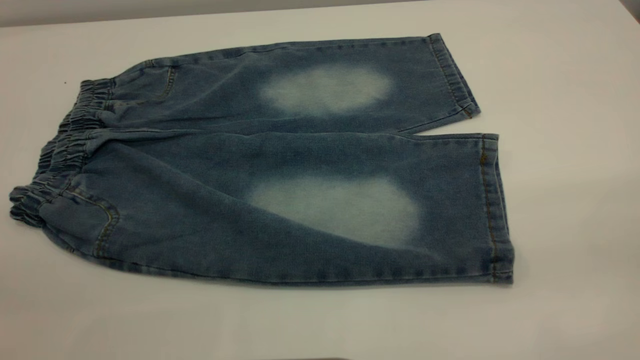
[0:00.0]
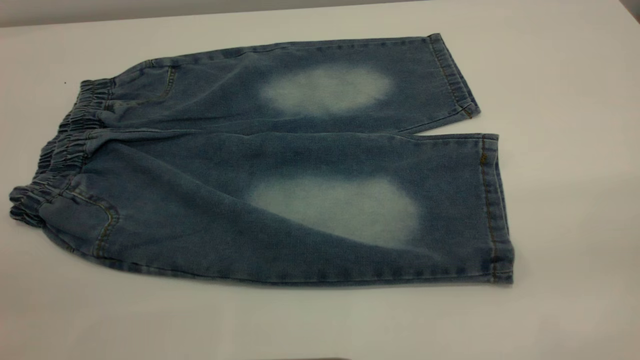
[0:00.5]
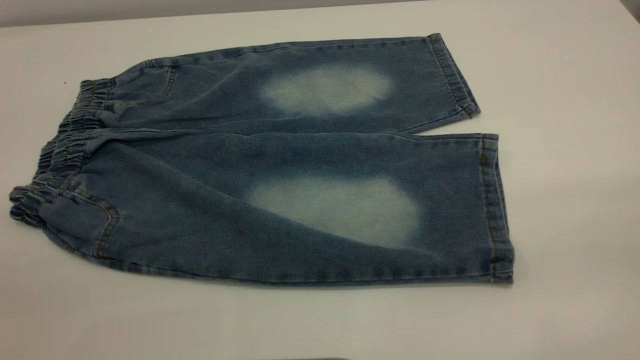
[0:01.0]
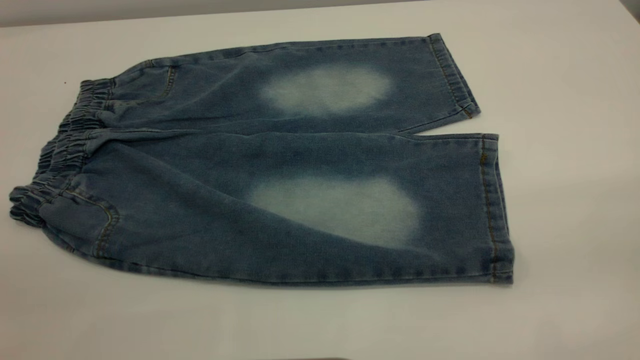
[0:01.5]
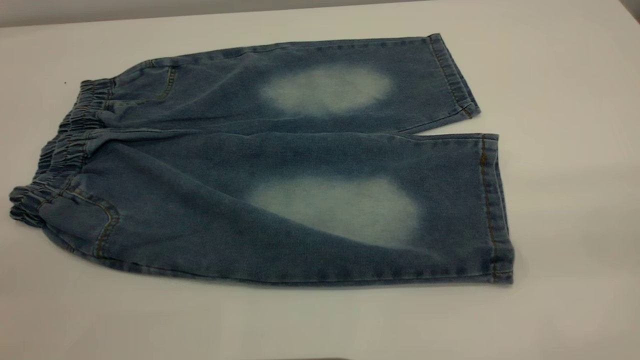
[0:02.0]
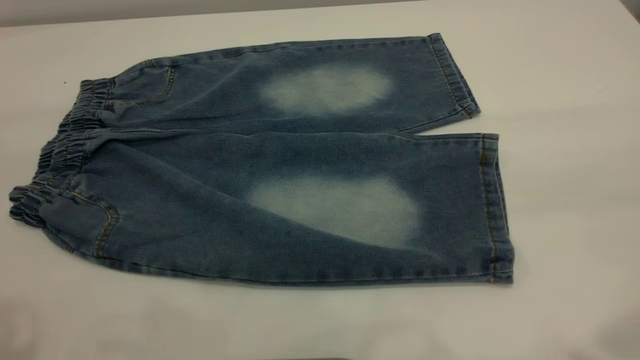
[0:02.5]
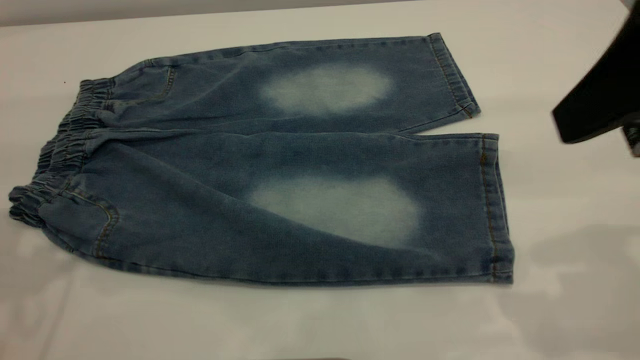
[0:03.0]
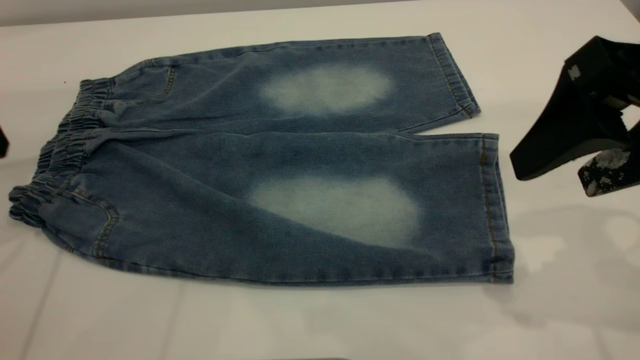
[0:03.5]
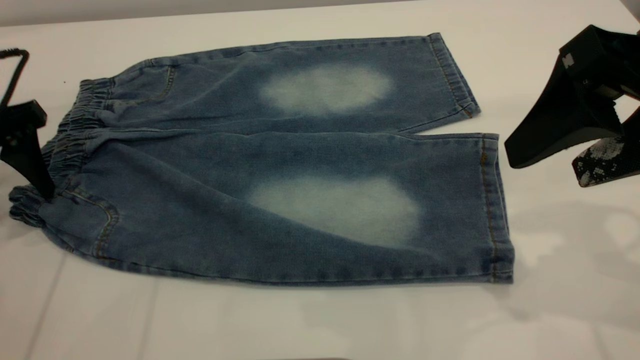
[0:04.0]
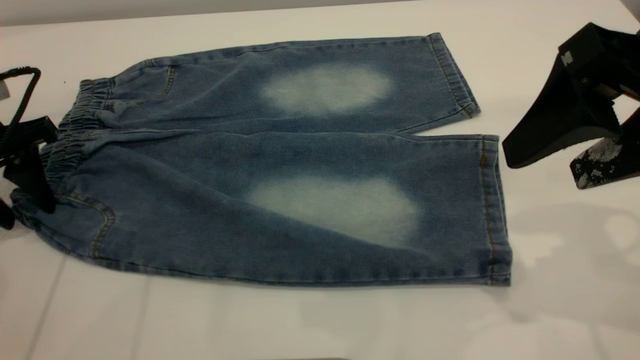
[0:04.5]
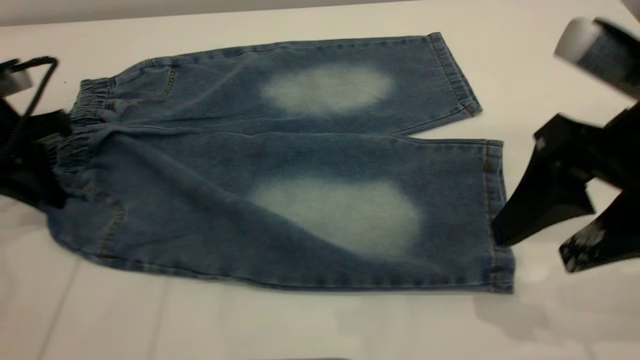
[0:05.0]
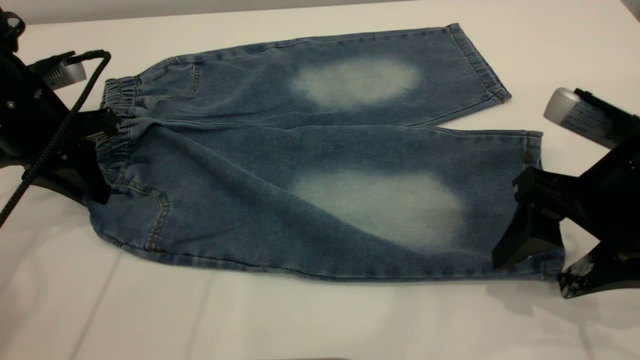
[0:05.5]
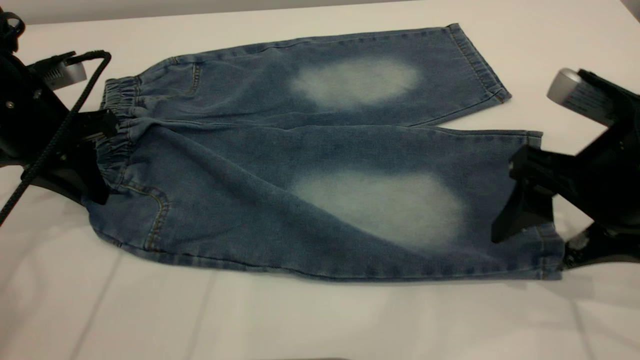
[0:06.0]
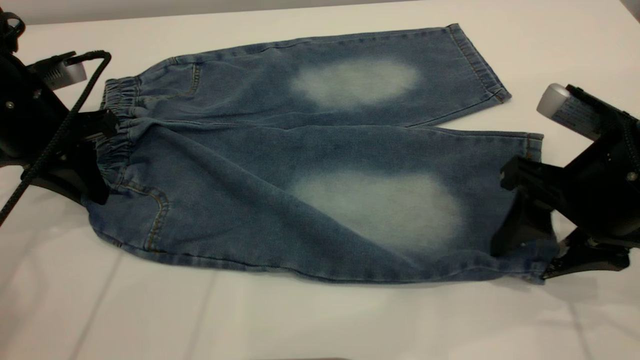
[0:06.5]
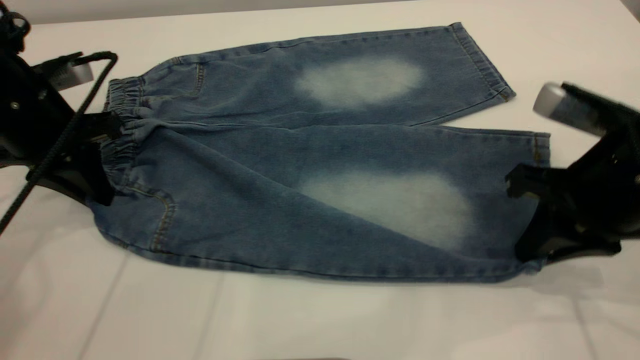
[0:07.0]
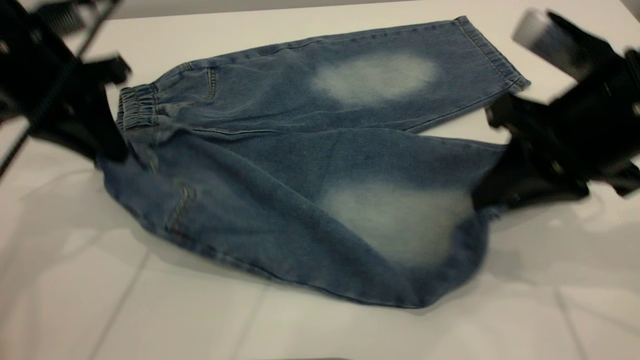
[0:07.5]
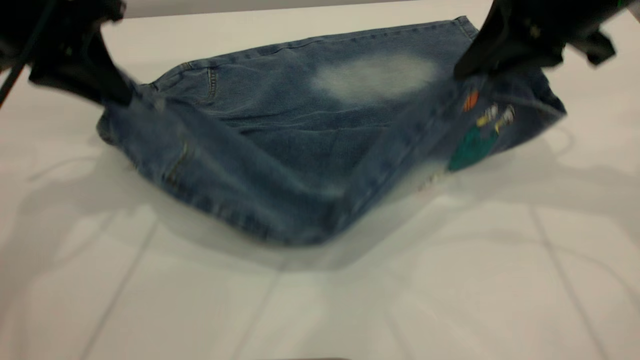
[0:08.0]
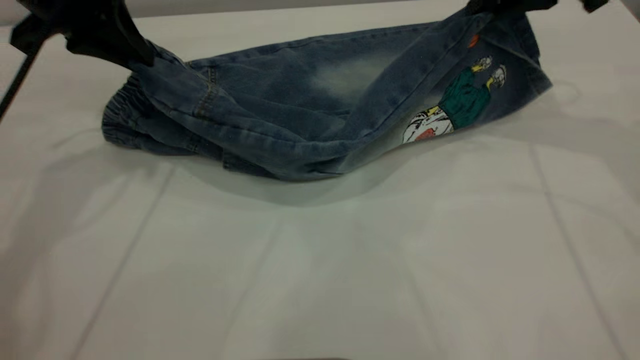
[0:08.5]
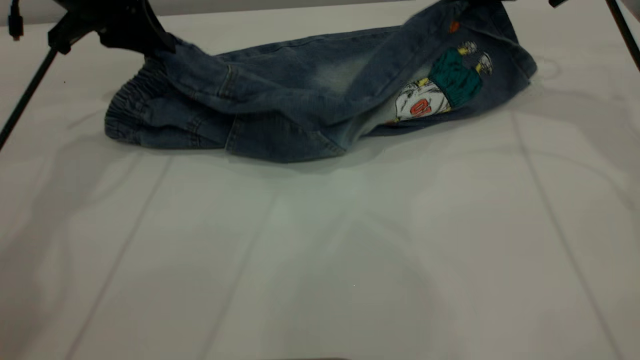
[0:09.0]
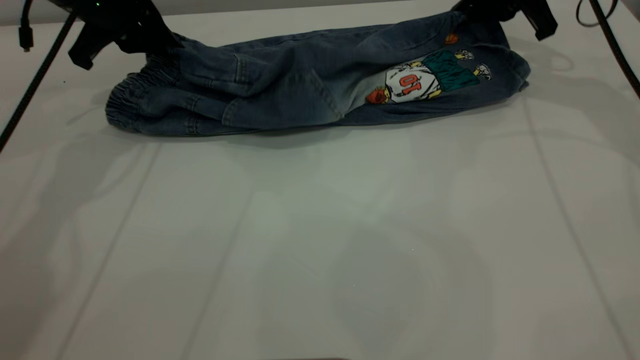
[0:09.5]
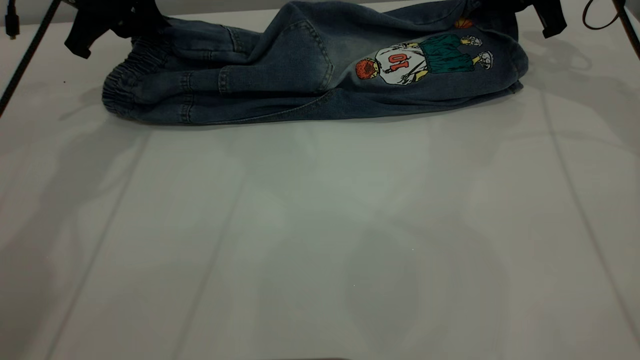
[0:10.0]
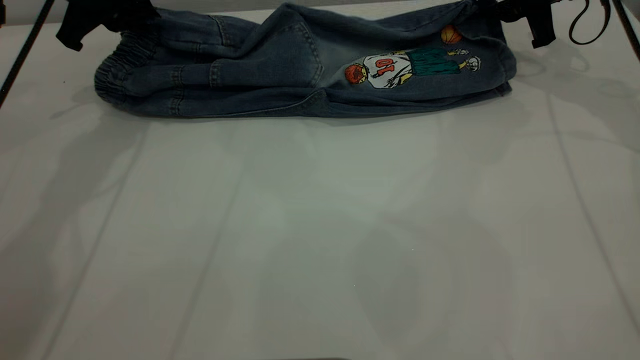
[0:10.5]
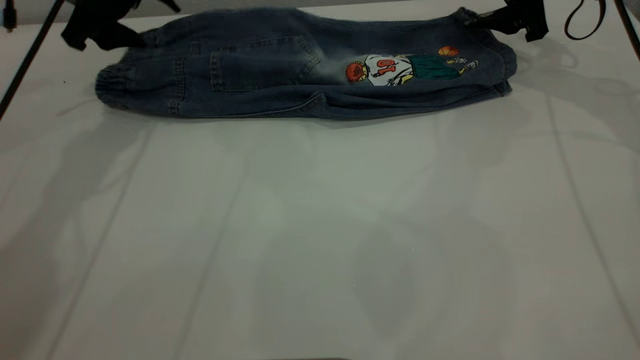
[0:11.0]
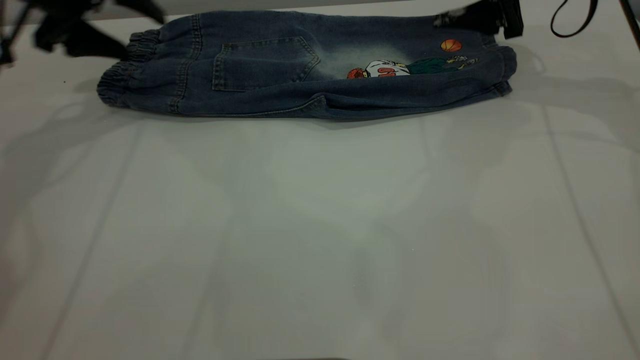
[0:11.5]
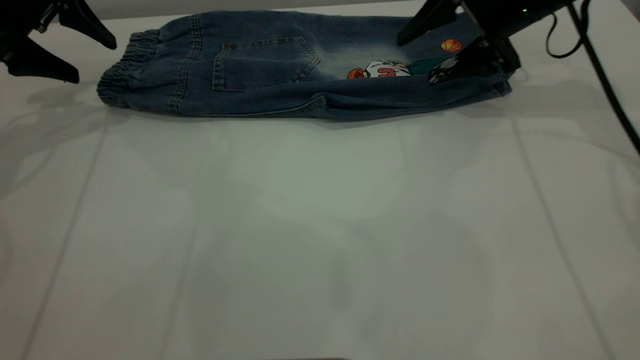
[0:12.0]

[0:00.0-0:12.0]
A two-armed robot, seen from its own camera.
Step, 0:00.0 to 0:11.0: Fold the bottom of the pants upward.
0:02.0 to 0:04.0: The left gripper travels forward and downward by some 40 cm. The right gripper goes about 25 cm forward and downward.
0:04.0 to 0:06.0: The left gripper goes roughly 5 cm to the right, and closes, while the right gripper shifts roughly 10 cm downward.
0:06.0 to 0:08.0: The right gripper moves forward and upward, some 15 cm, and closes its fingers. Meanwhile the left gripper goes about 10 cm upward.
0:08.0 to 0:10.0: The left gripper travels forward by roughly 10 cm, while the right gripper travels forward, downward and to the right by some 20 cm.
0:10.0 to 0:12.0: Both grippers travel together to the left, approximately 10 cm. The right gripper opens, while the left gripper opens its fingers.

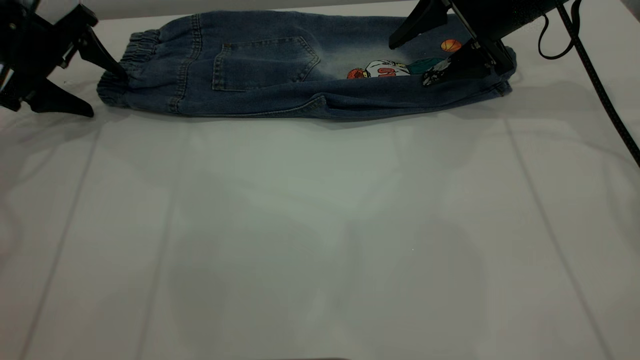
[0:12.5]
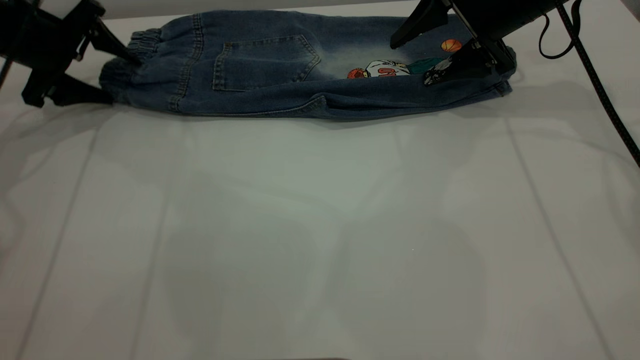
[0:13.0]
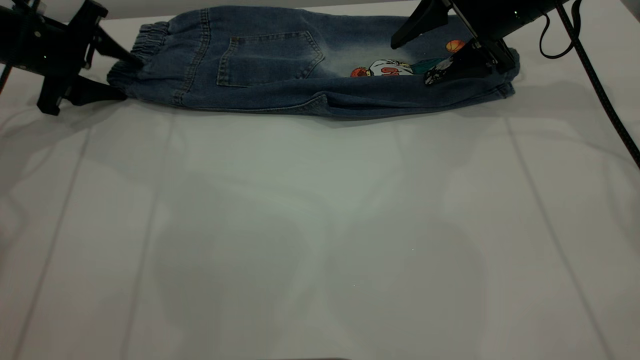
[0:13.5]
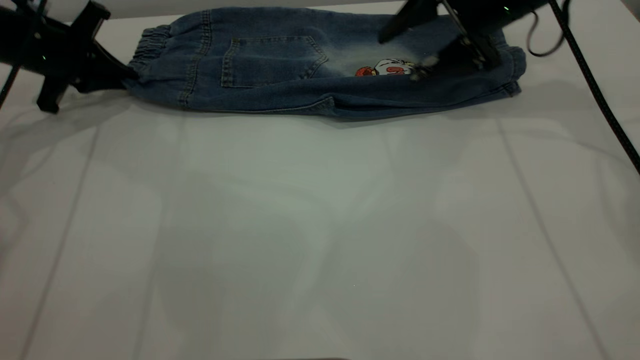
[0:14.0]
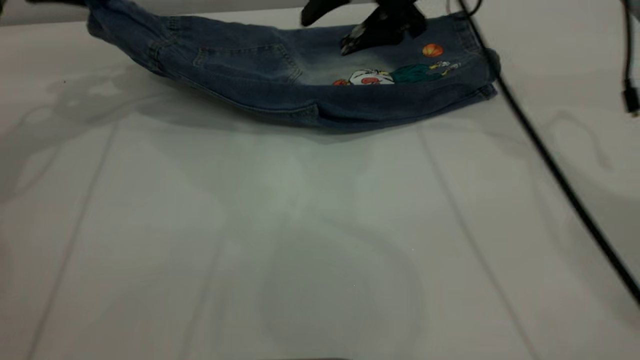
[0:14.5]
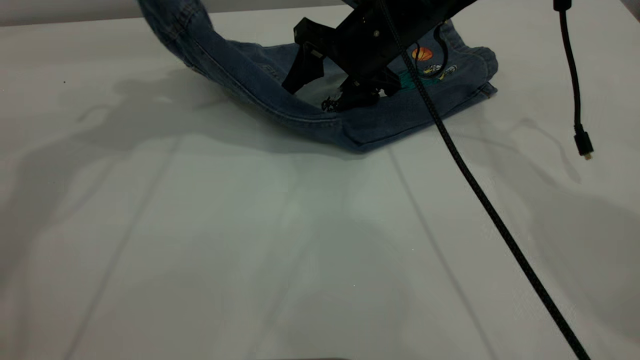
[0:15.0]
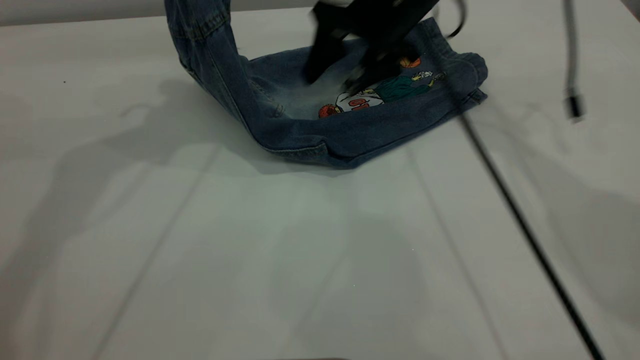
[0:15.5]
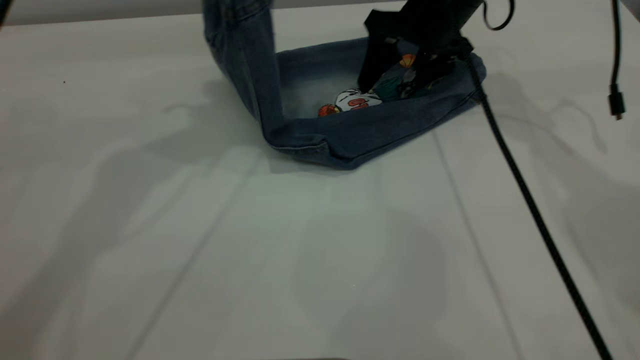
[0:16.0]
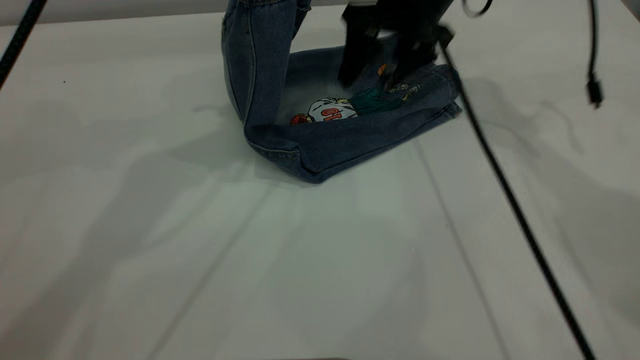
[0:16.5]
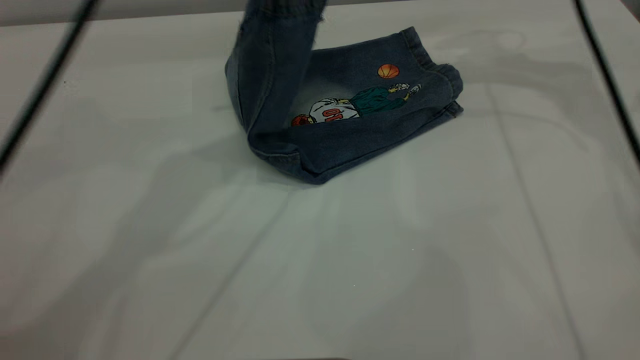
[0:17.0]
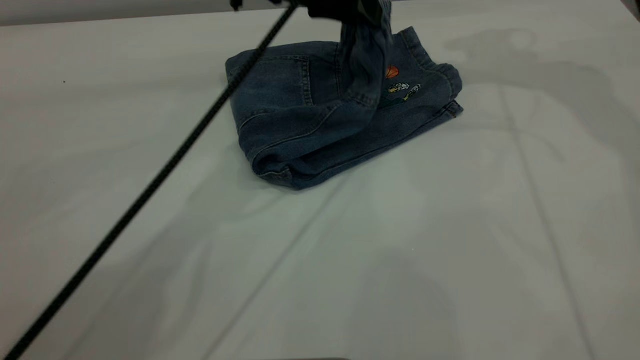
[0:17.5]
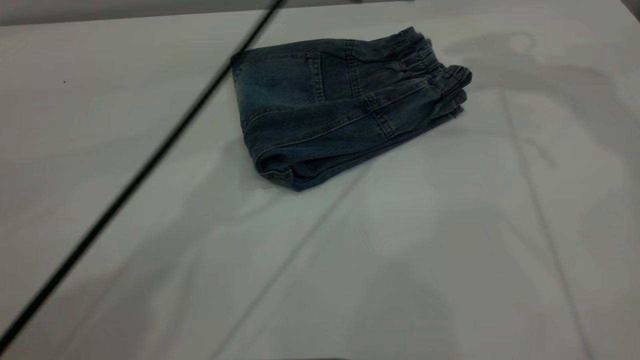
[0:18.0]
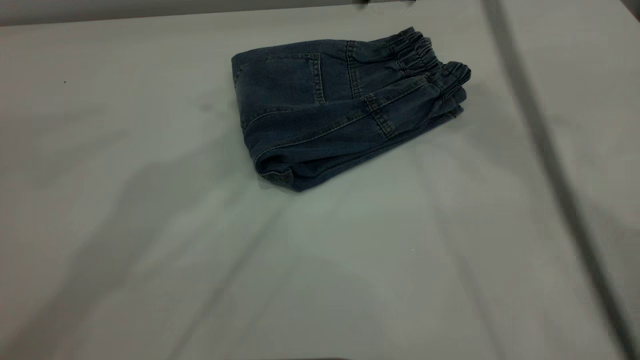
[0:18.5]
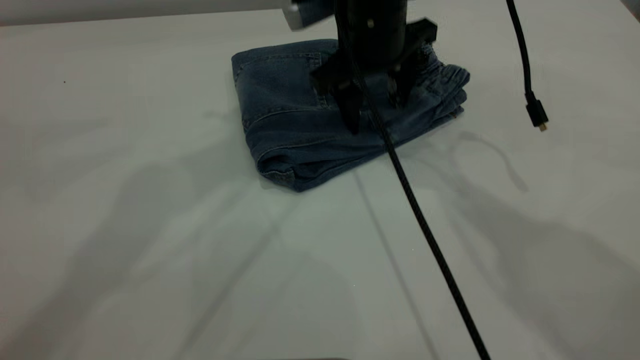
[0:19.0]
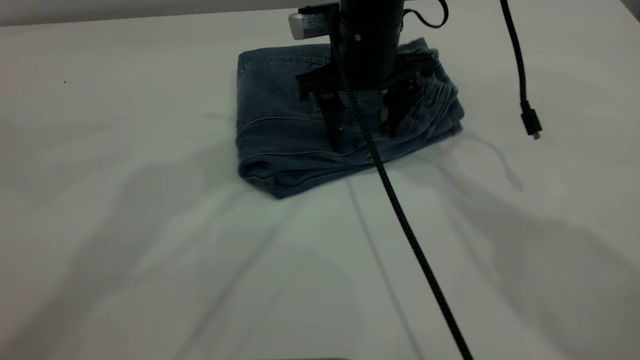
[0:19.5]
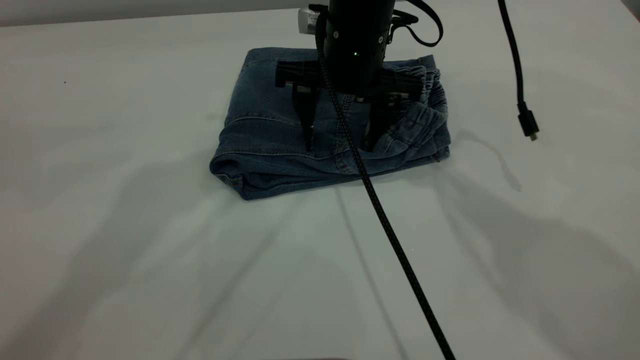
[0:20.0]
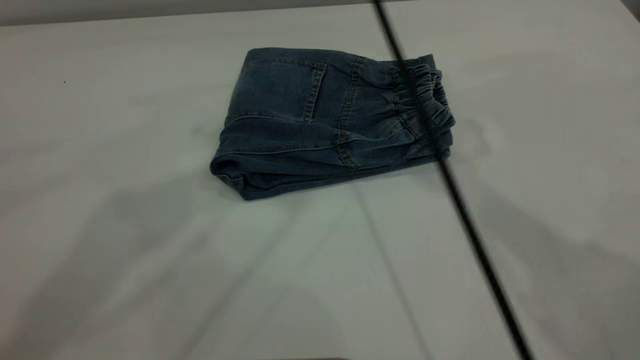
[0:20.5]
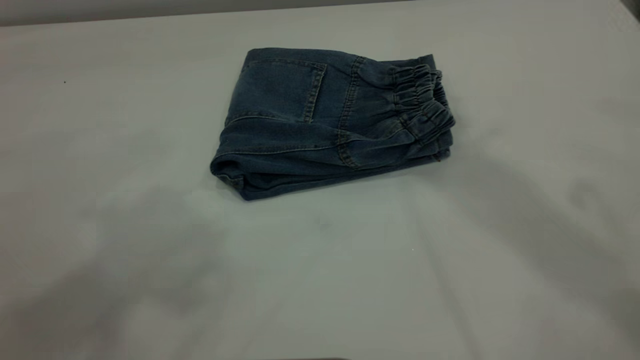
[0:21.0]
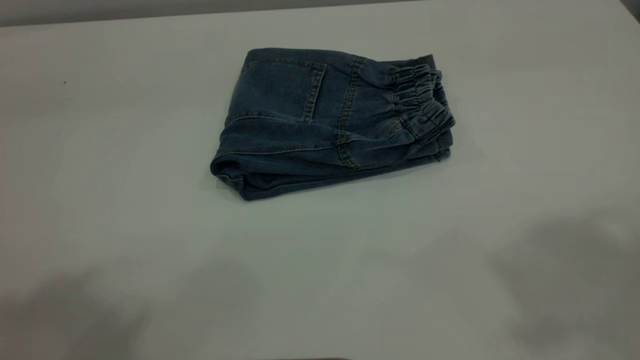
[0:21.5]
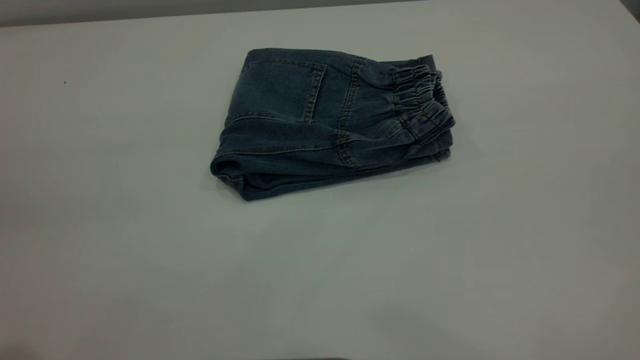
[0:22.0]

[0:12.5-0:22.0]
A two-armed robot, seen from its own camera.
Step, 0:12.5 to 0:18.0: Fold the pants from left to right.
0:12.5 to 0:14.5: The left gripper heads upward, covering roughly 10 cm, and closes its fingers, while the right gripper moves to the left, roughly 10 cm.
0:14.5 to 0:16.5: The left gripper shifts some 20 cm to the right and upward.
0:16.5 to 0:18.0: The right gripper heads upward and to the right, covering roughly 20 cm; the left gripper moves to the right and downward, approximately 10 cm, and opens.
0:18.0 to 0:20.0: The right gripper shifts roughly 25 cm to the left and downward. Meanwhile the left gripper is displaced upward and to the left by approximately 15 cm.
0:20.0 to 0:22.0: The left gripper moves backward and to the left, roughly 30 cm, while the right gripper is displaced backward, upward and to the right by approximately 50 cm.
